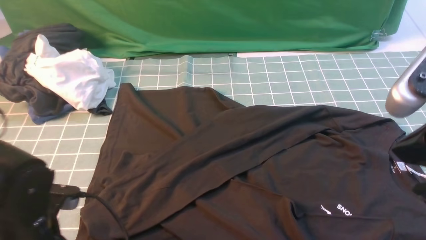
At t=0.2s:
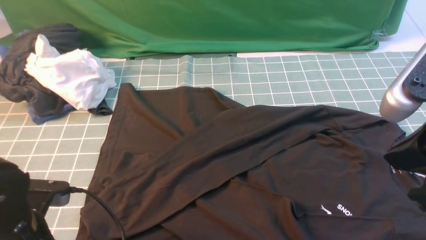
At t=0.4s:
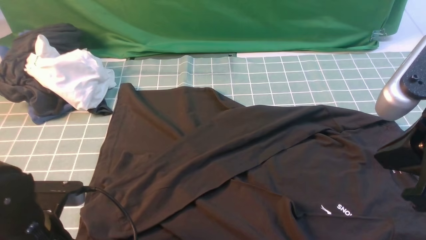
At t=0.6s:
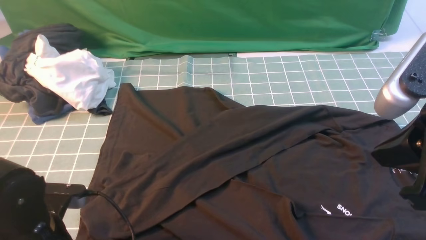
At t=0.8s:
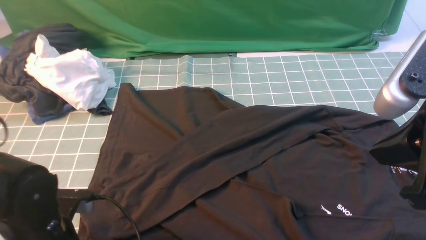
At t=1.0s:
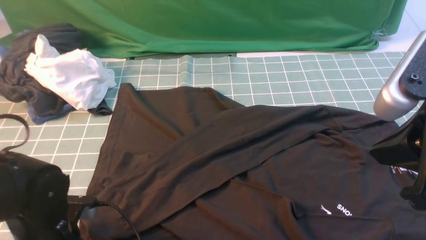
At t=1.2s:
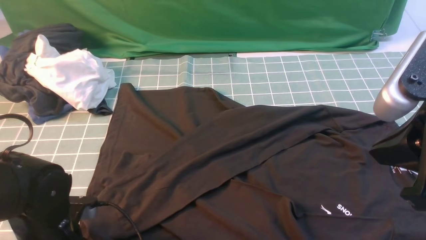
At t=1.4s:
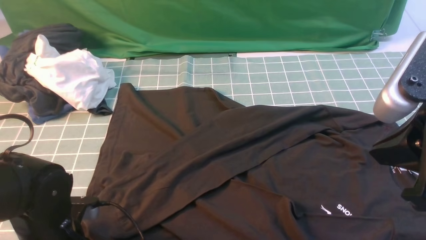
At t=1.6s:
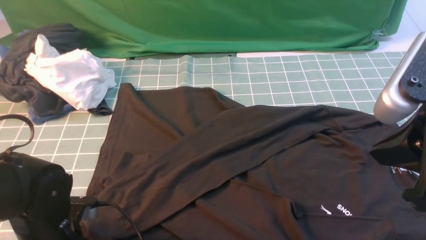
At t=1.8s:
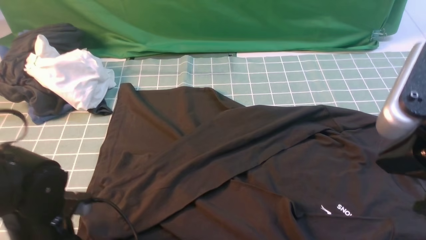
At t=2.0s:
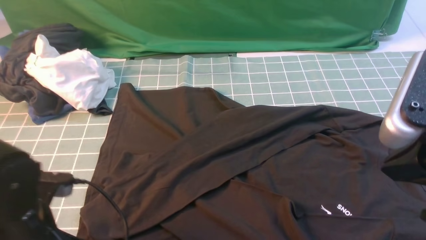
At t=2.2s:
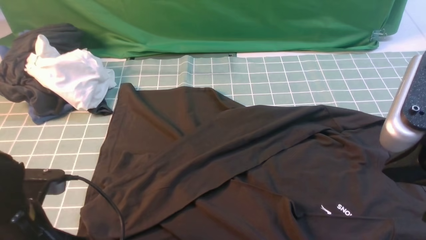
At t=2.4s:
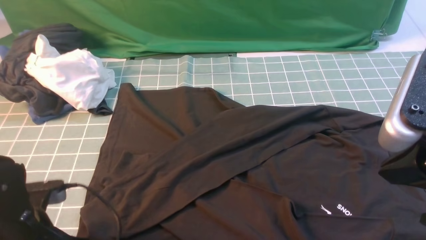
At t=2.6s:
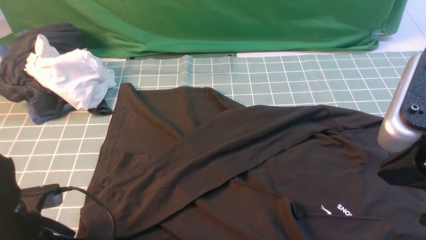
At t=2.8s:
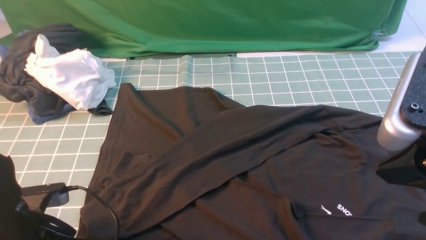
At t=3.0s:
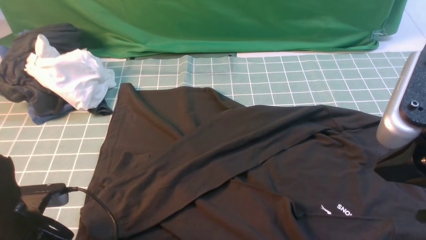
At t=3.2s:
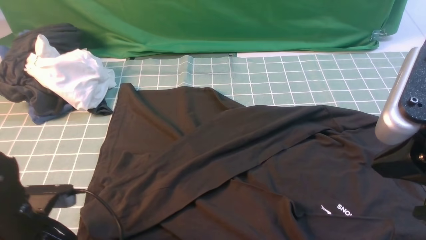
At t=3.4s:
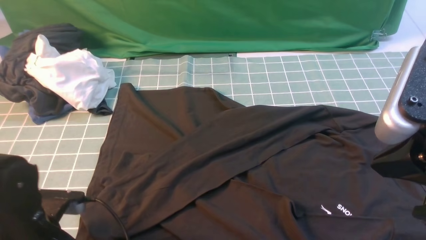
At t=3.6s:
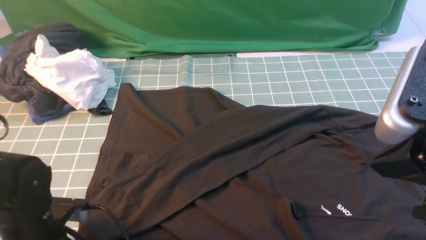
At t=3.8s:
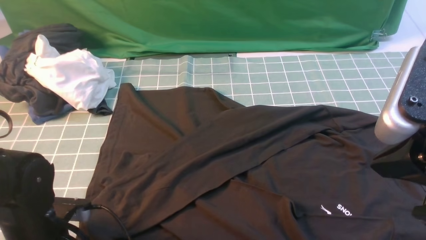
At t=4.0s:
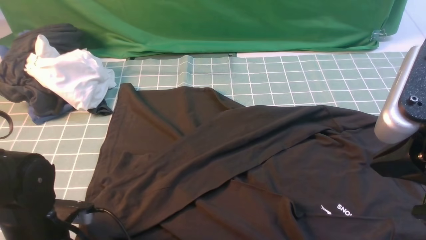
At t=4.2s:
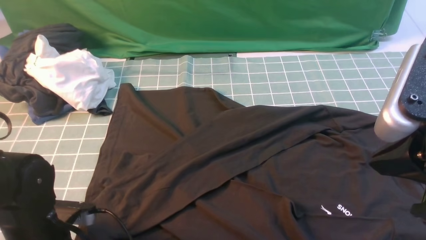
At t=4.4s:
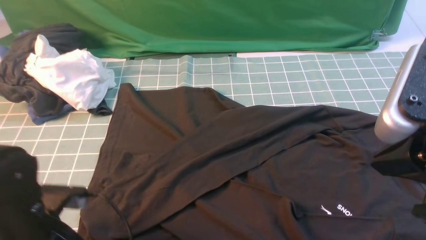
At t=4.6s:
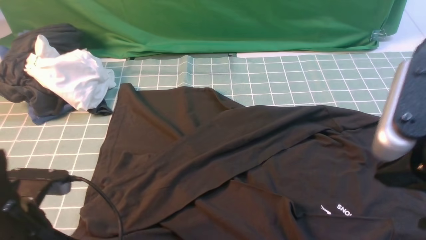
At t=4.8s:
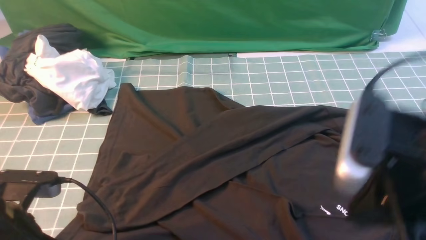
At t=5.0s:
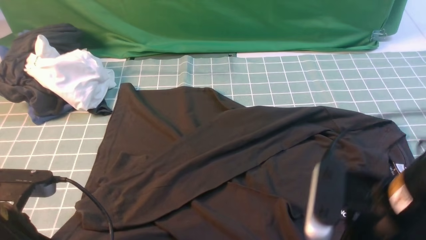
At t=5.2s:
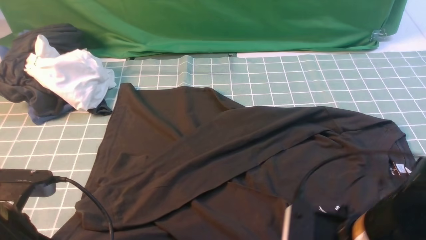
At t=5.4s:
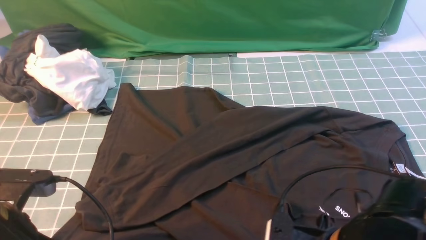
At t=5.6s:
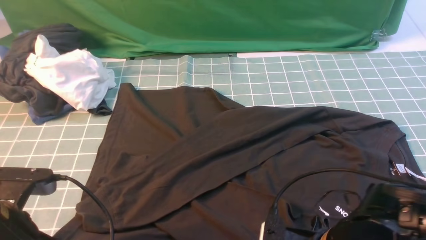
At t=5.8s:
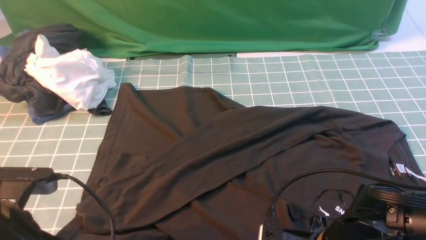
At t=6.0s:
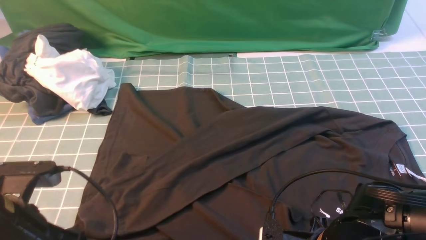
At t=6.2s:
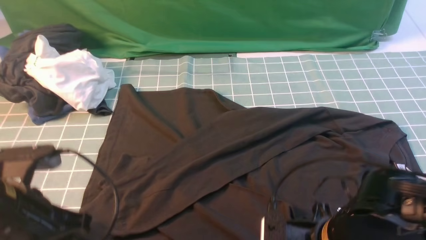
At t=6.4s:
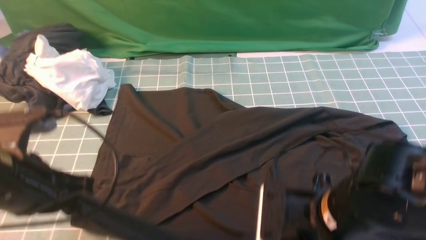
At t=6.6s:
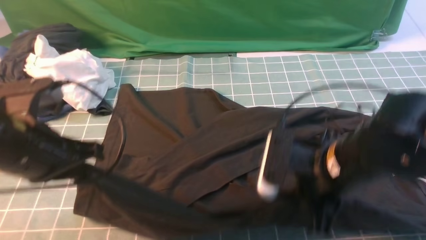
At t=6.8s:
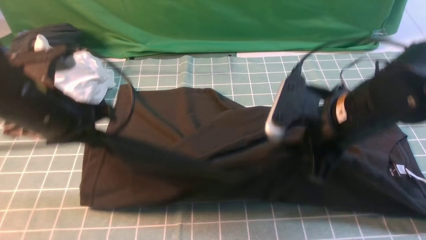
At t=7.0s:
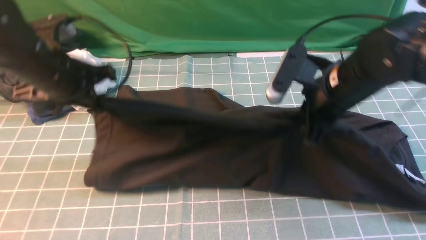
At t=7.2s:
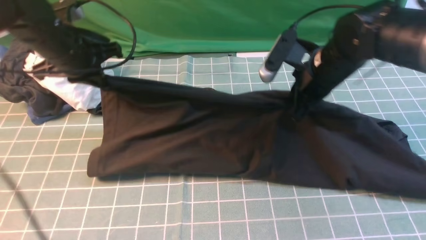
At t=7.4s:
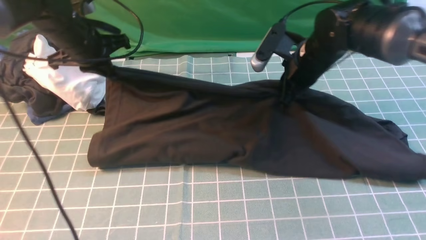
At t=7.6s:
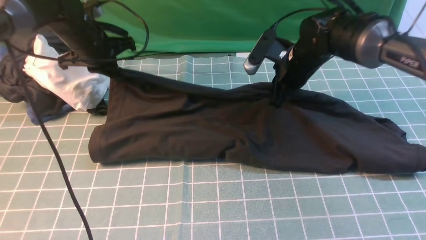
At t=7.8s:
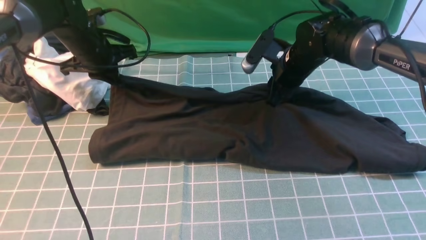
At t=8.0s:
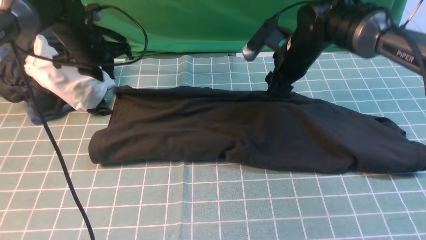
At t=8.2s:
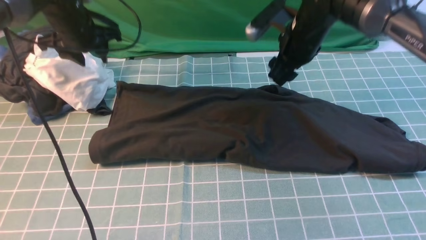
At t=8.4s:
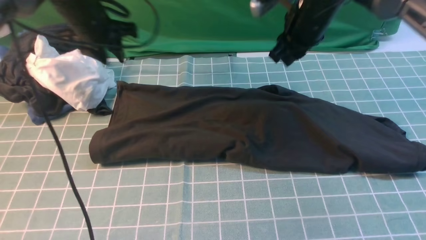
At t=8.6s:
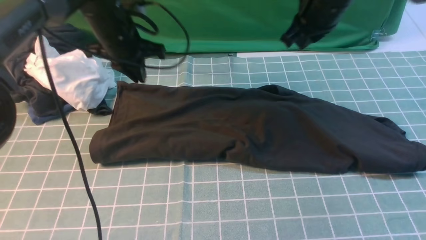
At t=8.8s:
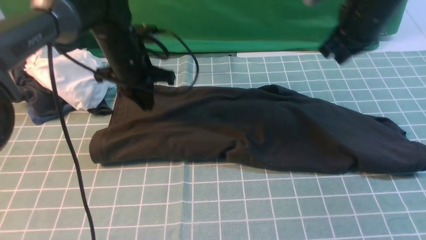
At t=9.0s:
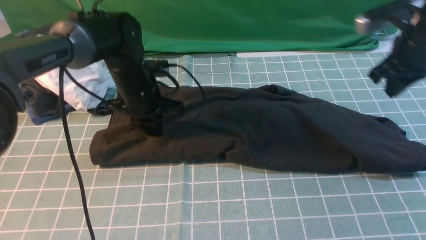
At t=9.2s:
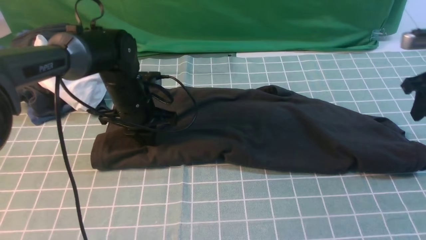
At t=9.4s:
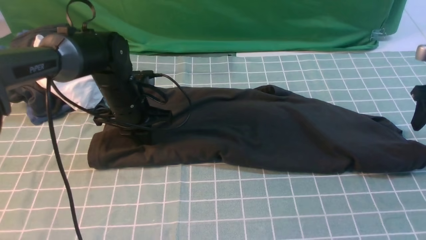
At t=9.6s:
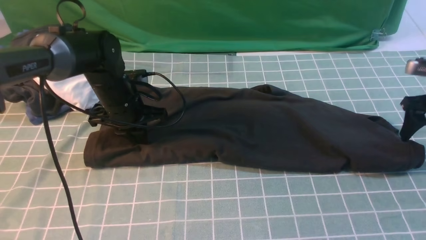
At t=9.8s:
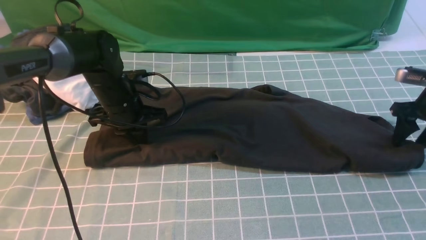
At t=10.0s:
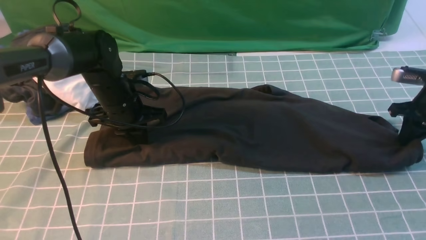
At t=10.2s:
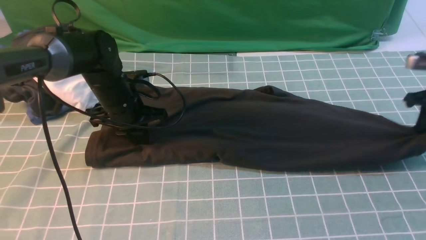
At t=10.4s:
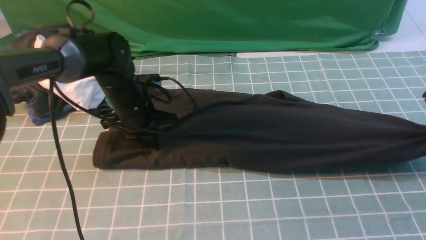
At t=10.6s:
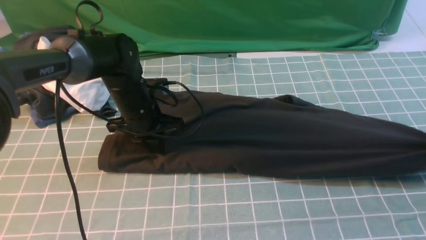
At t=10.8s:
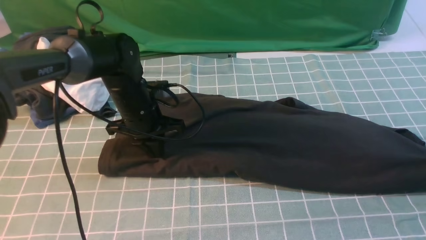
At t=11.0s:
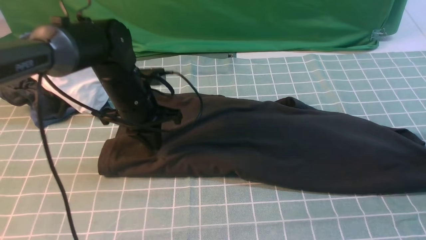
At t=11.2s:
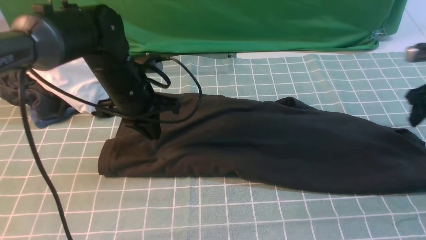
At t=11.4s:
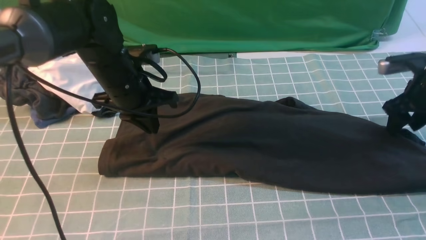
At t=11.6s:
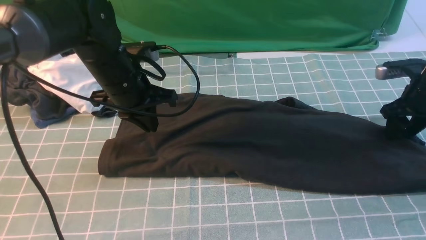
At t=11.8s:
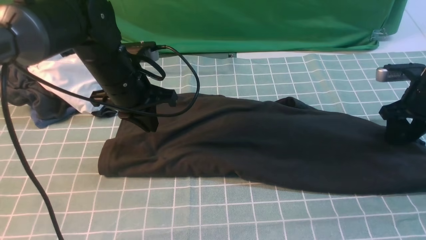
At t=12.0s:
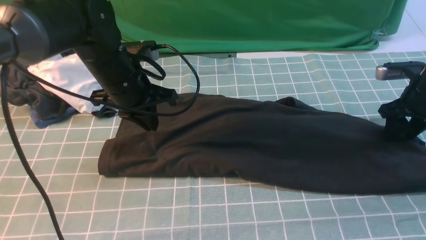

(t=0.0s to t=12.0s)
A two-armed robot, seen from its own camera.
Step, t=0.0s - t=6.4s: use both arms simultaneously to clamp the lower edge of the clothing fabric.
Step, t=6.6s - t=8.2s: use both arms to drag the lower edge of the fabric forward and fold it over the upper edge.
t=0.0s - t=1.6s: The left gripper opens and closes again.
t=1.6s - t=3.0s: The left gripper opens up.
t=3.0s - t=4.4s: The left gripper closes.
t=4.4s - t=6.0s: The right gripper is displaced downward and to the left by approximately 20 cm, and opens, then closes once more; the left gripper travels upward by approximately 5 cm.
t=6.0s - t=7.6s: The grippers both shift forward by roughly 30 cm.
t=7.6s - t=9.0s: The right gripper shifts approximately 20 cm to the right and upward, and opens, then closes once more. Meanwhile the left gripper moves to the right and backward, roughly 10 cm, and opens, then closes once more.
t=9.0s - t=10.4s: The right gripper moves to the right and downward, about 15 cm, and opens, then closes again.
t=10.4s - t=12.0s: The right gripper moves to the left, approximately 5 cm, and opens. Meanwhile the left gripper heads upward, covering roughly 10 cm.

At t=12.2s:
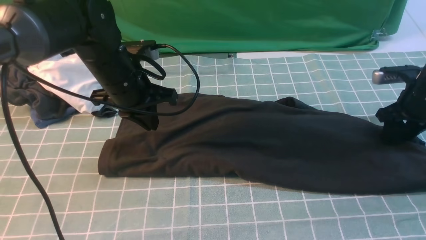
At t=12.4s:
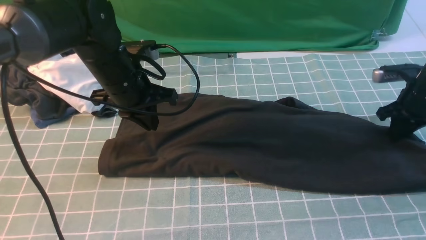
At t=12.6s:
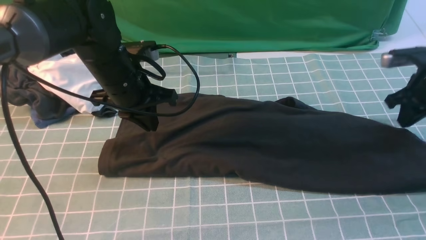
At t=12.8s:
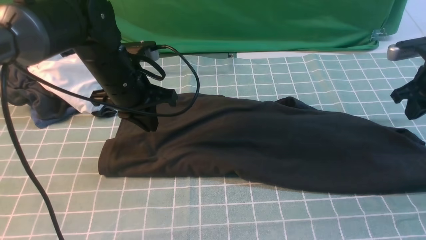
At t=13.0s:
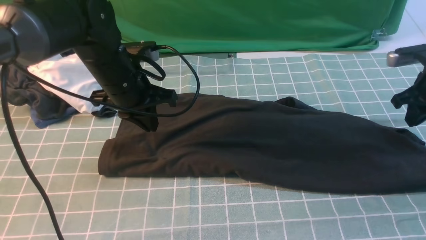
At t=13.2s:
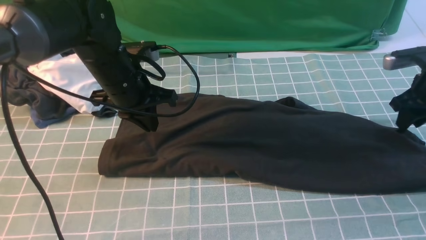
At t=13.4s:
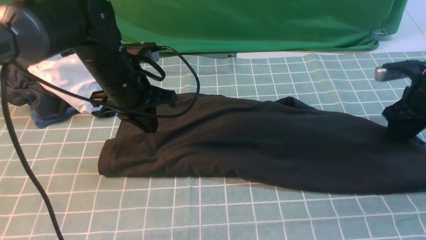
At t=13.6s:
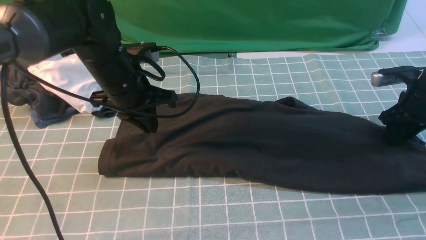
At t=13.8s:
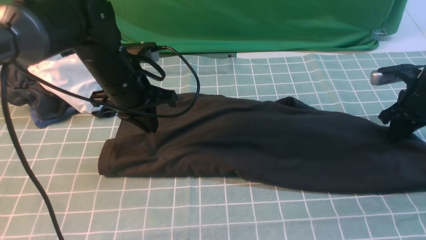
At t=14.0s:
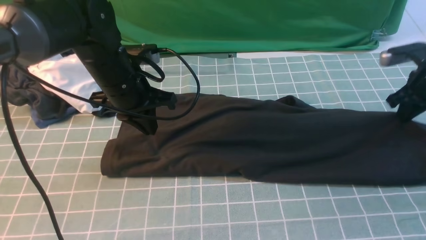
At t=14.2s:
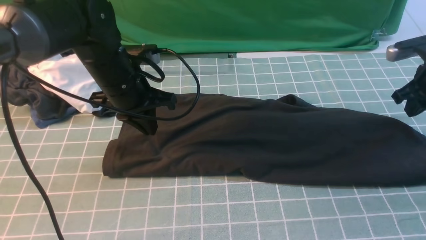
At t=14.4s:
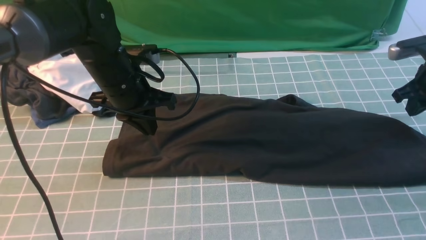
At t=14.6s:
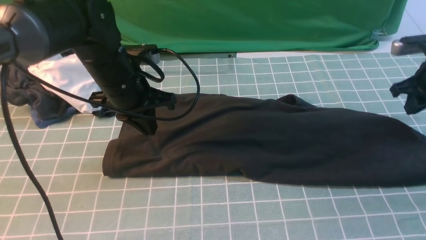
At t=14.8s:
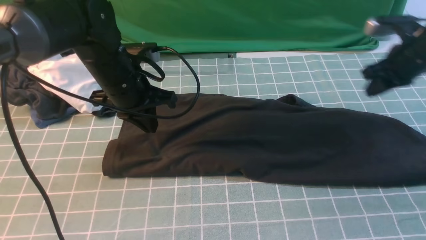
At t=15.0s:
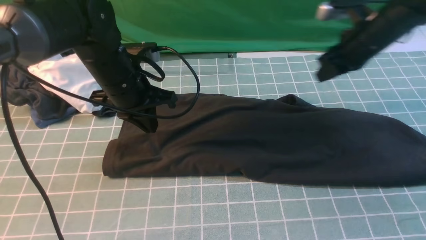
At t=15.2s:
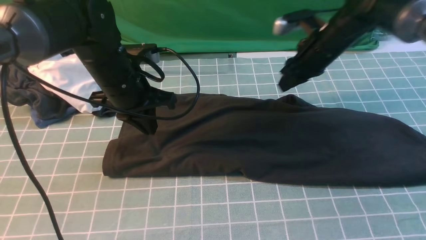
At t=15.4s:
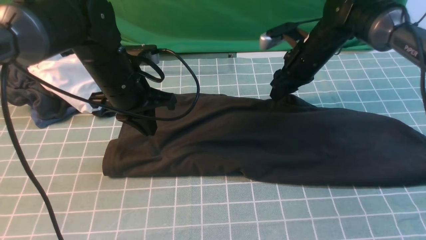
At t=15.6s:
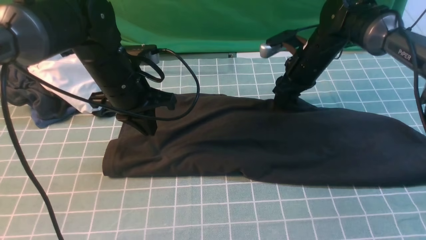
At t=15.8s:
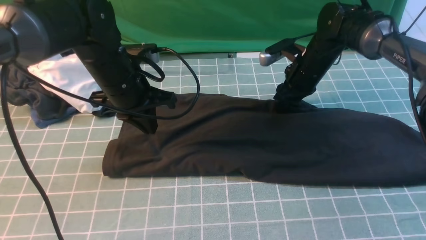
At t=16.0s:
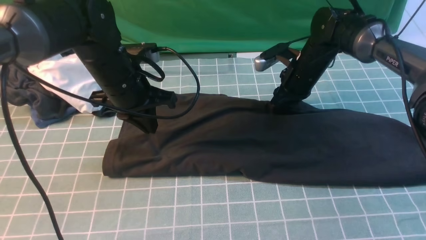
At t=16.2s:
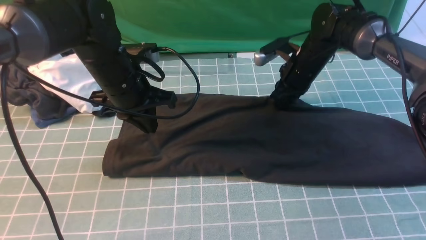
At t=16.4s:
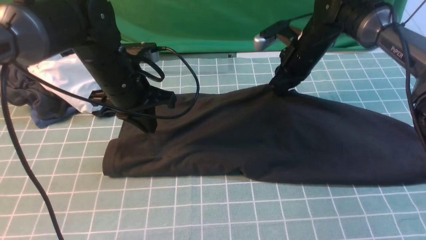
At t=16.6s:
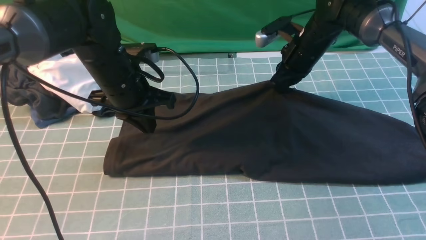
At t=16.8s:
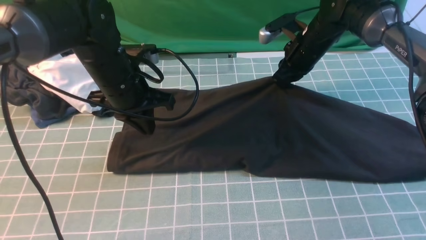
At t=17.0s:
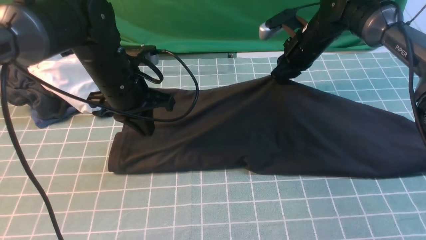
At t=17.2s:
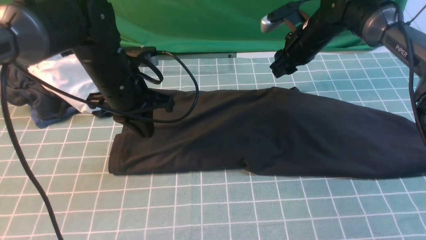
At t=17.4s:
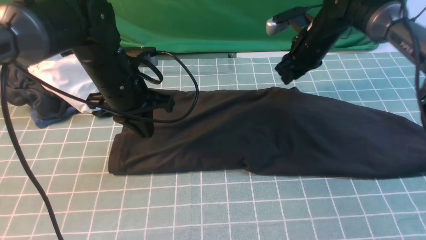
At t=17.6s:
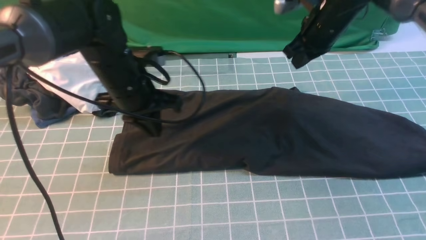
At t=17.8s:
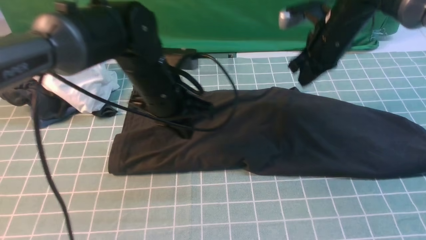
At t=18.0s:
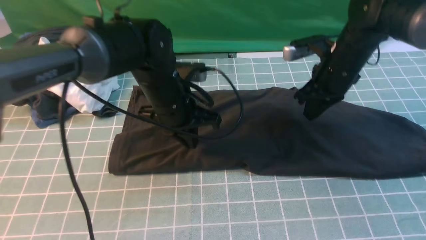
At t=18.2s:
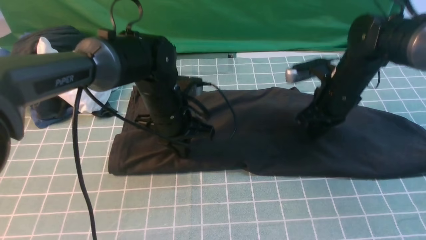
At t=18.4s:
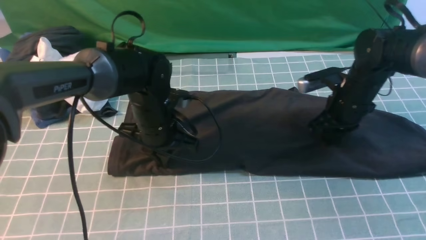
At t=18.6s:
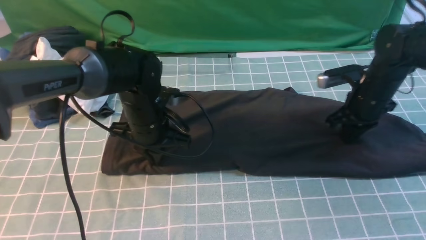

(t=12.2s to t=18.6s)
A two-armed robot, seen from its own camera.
t=12.2s - t=13.8s: The grippers stay close to where they were, moving slightly.
t=13.8s - t=15.4s: The right gripper goes about 20 cm to the left, and opens its fingers.
t=15.4s - t=17.0s: The grippers stay close to where they were, moving slightly.
t=17.0s - t=18.6s: The left gripper is displaced downward by roughly 5 cm. The right gripper moves backward and to the right, some 15 cm.
